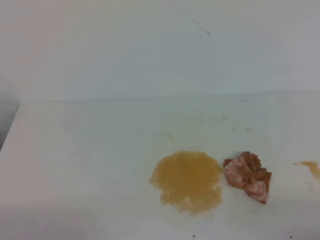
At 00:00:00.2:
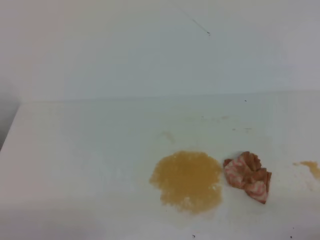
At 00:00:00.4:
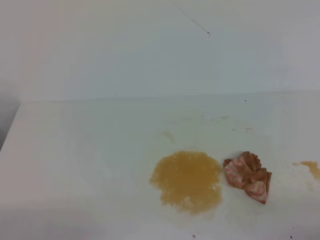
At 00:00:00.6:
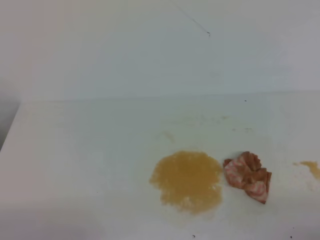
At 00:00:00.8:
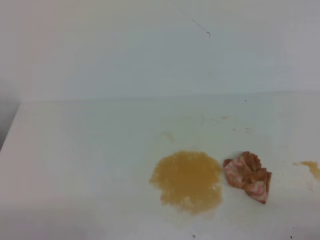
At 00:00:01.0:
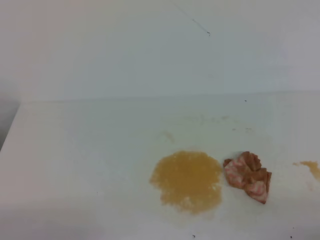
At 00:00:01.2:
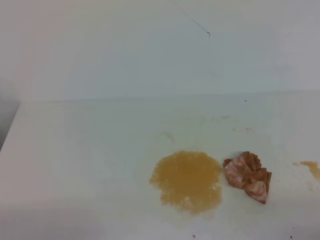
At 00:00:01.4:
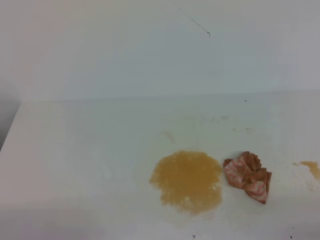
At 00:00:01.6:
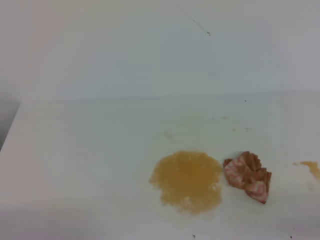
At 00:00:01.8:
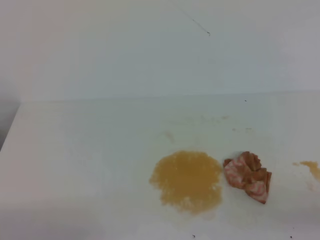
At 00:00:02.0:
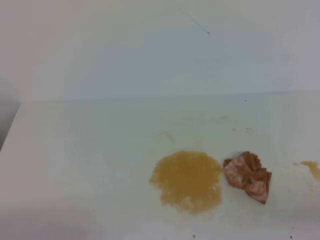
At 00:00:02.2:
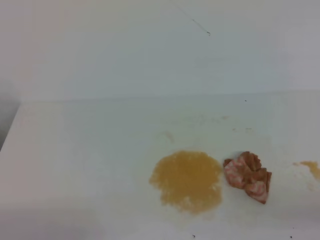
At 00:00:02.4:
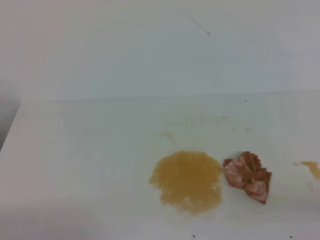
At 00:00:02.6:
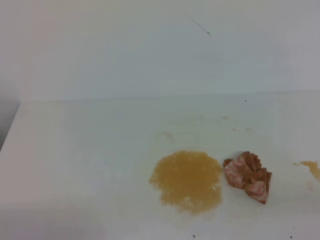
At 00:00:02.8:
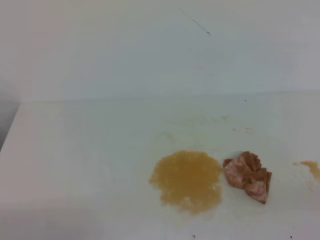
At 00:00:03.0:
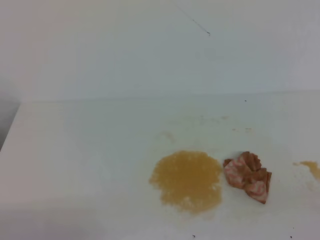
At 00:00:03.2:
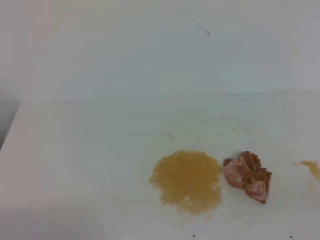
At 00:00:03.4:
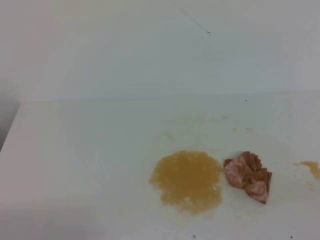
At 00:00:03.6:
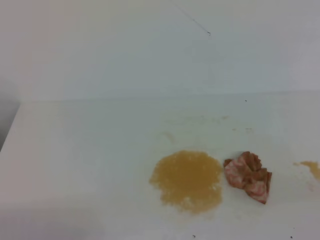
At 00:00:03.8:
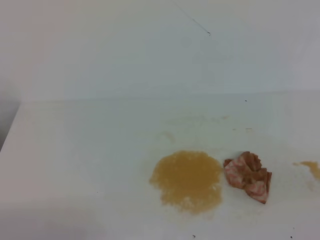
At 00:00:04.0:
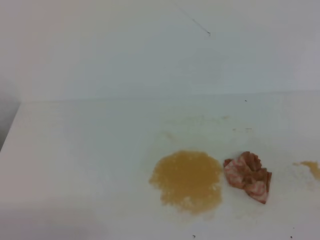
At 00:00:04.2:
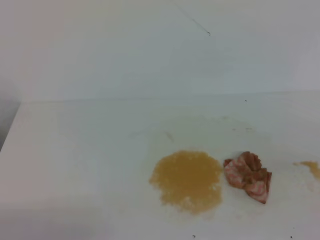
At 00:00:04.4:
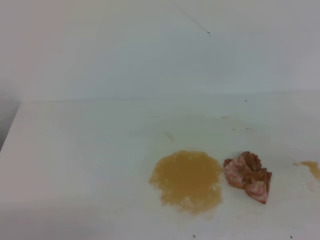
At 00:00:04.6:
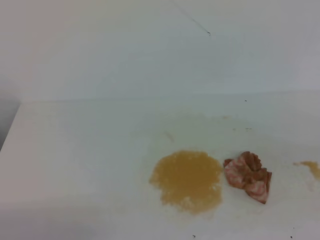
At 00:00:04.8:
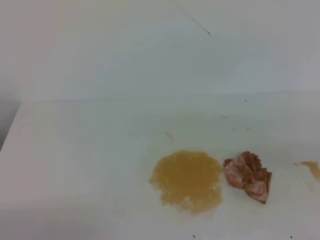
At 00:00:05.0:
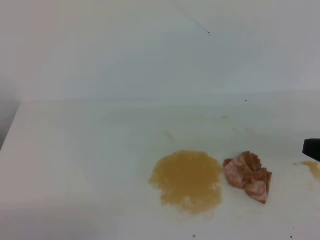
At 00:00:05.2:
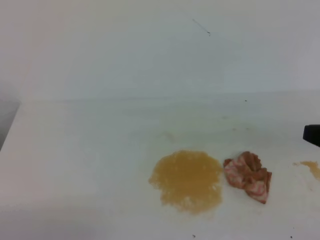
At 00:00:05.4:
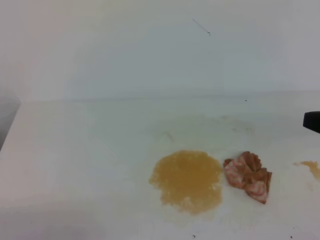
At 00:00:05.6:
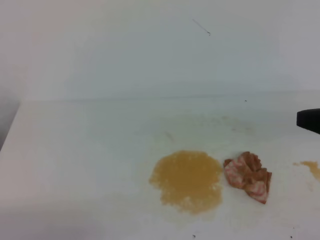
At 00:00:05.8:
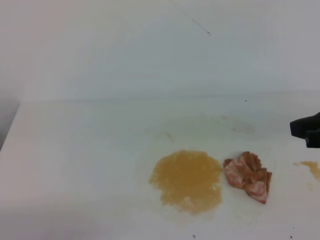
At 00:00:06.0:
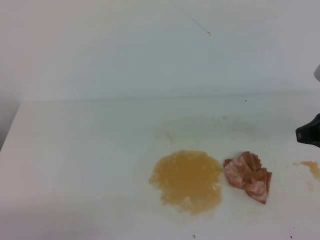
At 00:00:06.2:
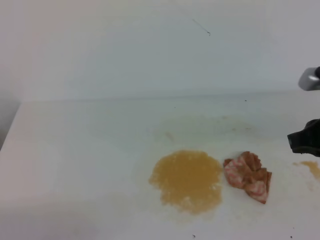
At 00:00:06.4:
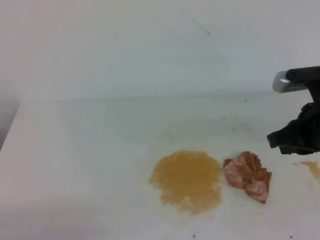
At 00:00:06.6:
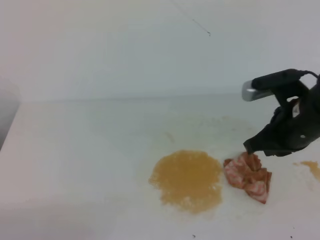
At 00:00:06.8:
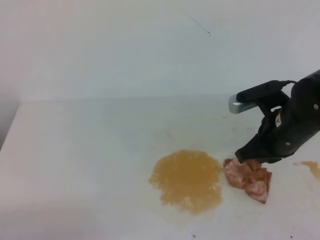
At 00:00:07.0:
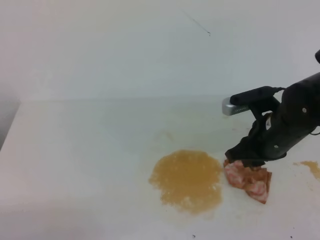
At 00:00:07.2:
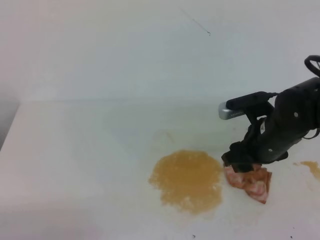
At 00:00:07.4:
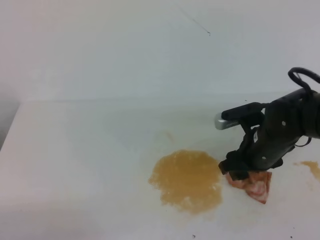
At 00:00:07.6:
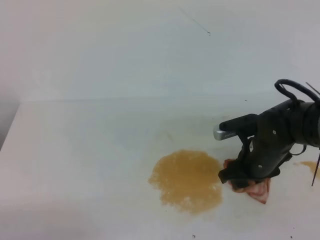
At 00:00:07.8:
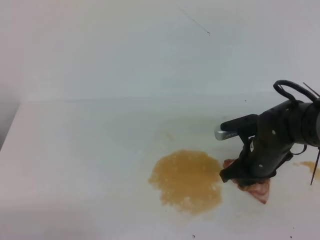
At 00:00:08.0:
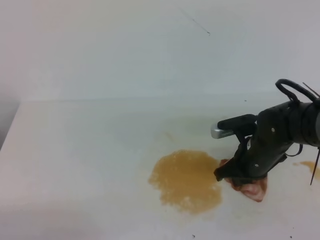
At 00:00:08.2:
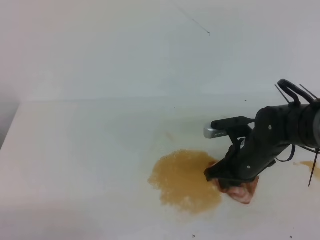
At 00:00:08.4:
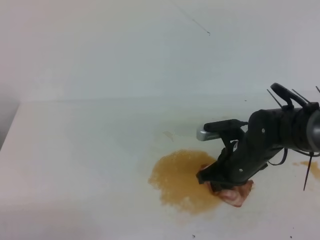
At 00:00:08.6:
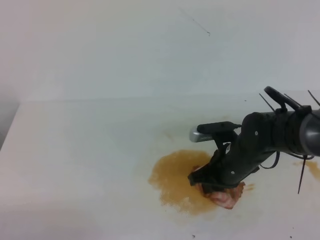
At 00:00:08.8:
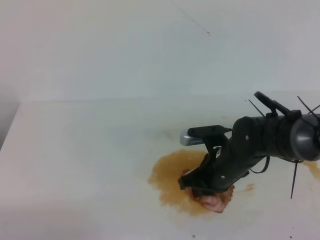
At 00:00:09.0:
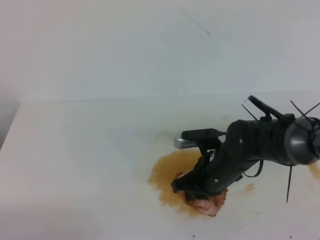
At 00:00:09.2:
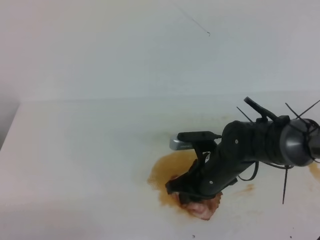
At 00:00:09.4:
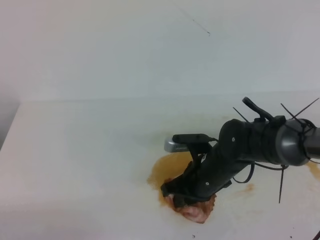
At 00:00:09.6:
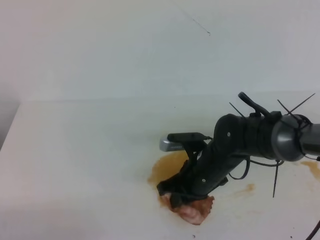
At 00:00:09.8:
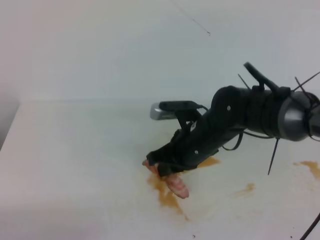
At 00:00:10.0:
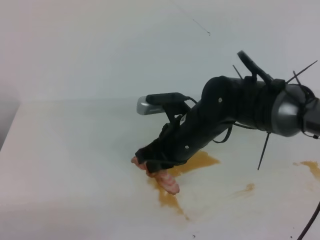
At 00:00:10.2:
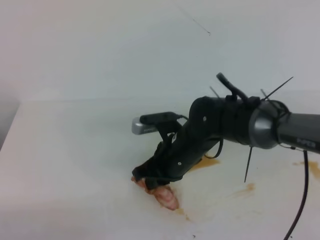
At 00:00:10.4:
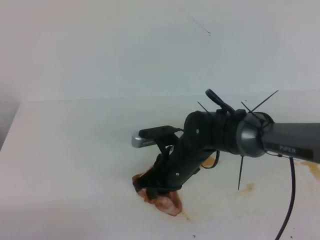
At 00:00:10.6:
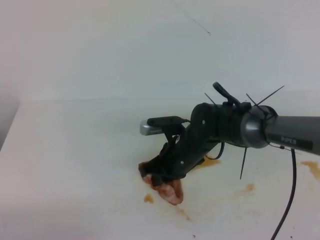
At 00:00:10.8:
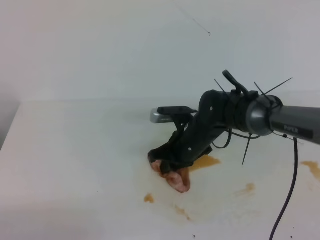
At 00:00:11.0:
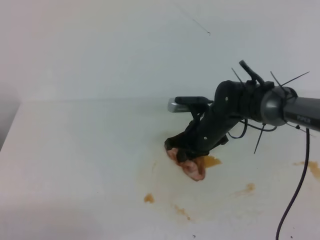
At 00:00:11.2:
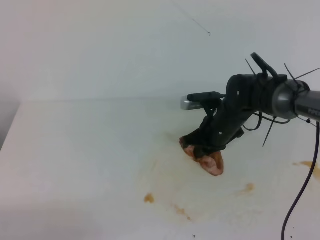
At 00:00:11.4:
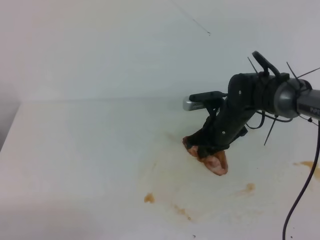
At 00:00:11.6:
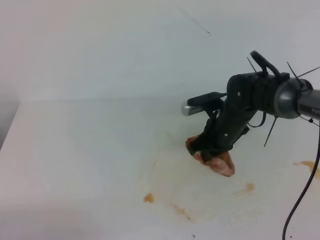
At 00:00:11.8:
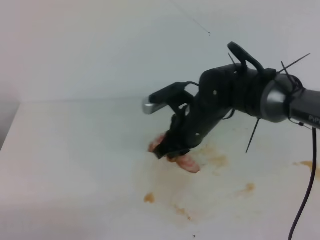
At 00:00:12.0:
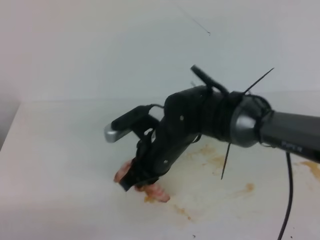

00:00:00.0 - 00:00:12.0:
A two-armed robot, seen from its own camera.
00:00:04.4 - 00:00:06.0: The right gripper heads forward and to the left, covering roughly 10 cm.
00:00:06.0 - 00:00:07.6: The right gripper moves downward, to the left and forward, some 20 cm, and opens its fingers.
00:00:07.6 - 00:00:09.0: The right gripper heads to the left, covering some 5 cm, and closes its fingers.
00:00:09.0 - 00:00:10.4: The right gripper heads to the left, covering some 5 cm.
00:00:10.4 - 00:00:12.0: The right gripper moves roughly 10 cm to the right and comes back.

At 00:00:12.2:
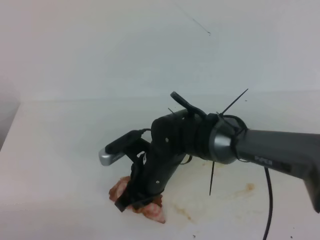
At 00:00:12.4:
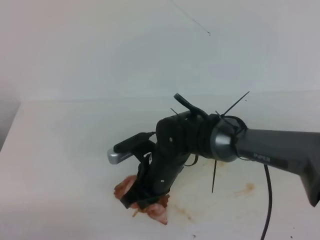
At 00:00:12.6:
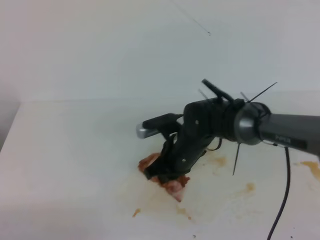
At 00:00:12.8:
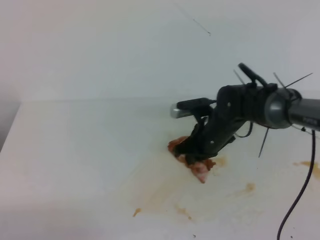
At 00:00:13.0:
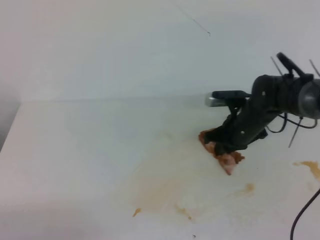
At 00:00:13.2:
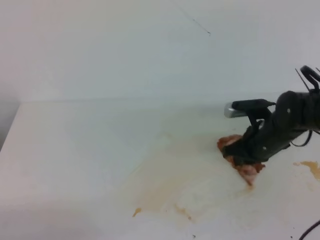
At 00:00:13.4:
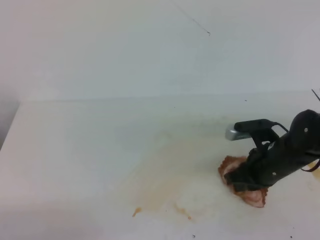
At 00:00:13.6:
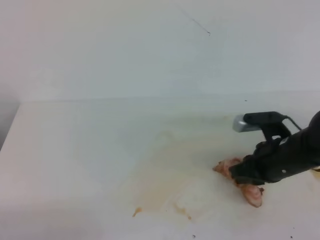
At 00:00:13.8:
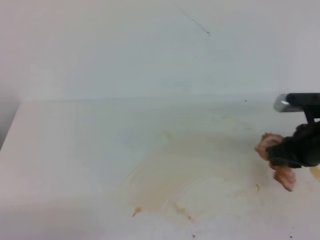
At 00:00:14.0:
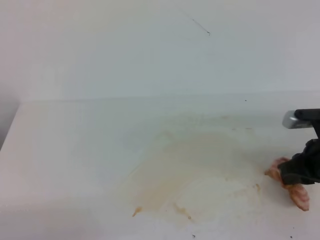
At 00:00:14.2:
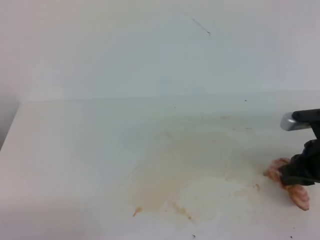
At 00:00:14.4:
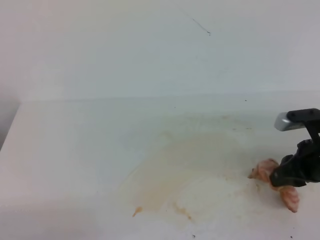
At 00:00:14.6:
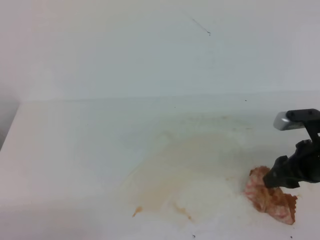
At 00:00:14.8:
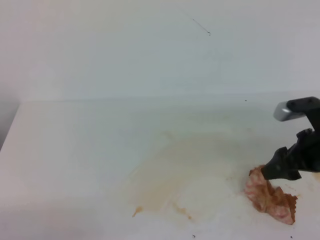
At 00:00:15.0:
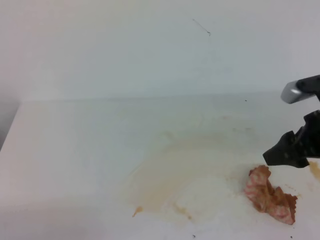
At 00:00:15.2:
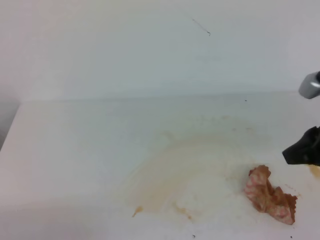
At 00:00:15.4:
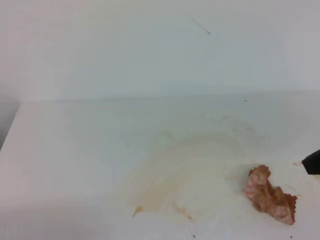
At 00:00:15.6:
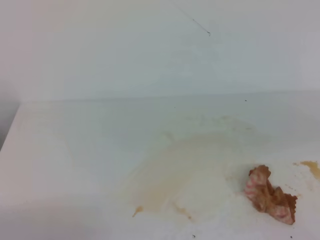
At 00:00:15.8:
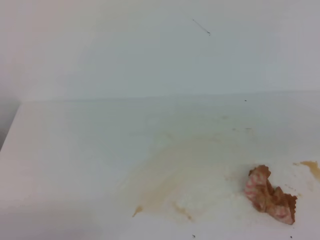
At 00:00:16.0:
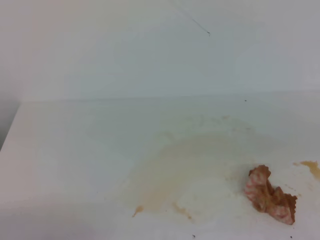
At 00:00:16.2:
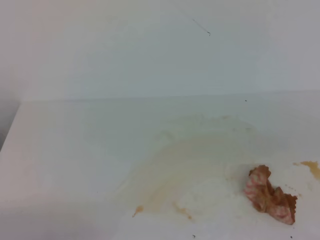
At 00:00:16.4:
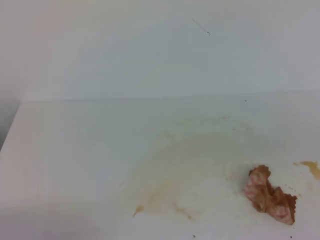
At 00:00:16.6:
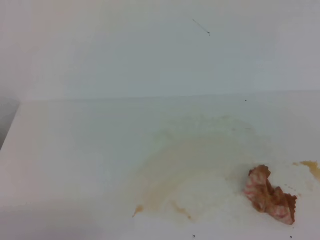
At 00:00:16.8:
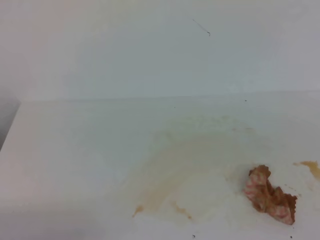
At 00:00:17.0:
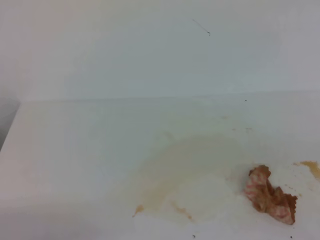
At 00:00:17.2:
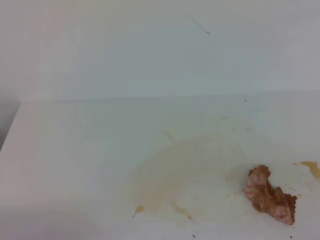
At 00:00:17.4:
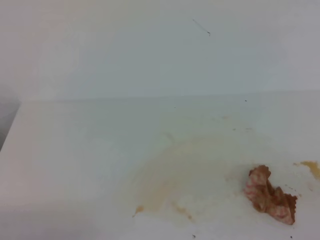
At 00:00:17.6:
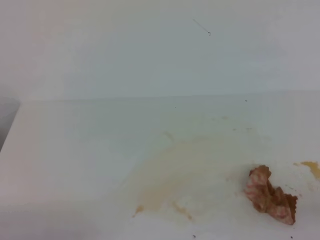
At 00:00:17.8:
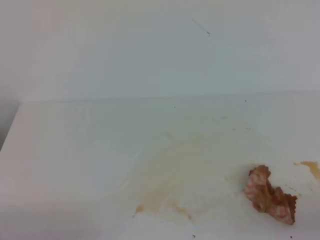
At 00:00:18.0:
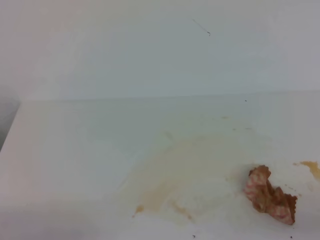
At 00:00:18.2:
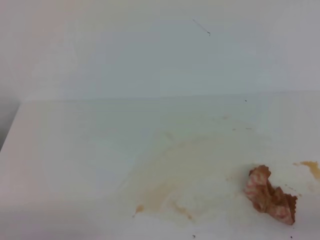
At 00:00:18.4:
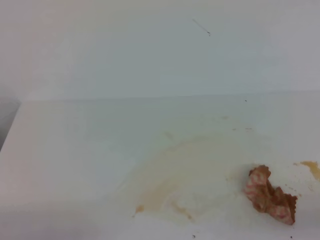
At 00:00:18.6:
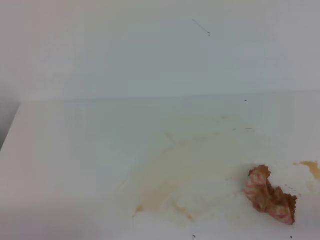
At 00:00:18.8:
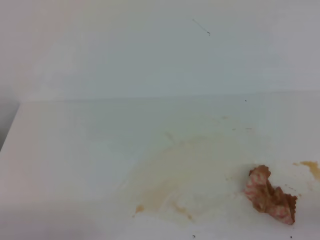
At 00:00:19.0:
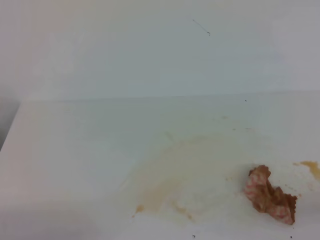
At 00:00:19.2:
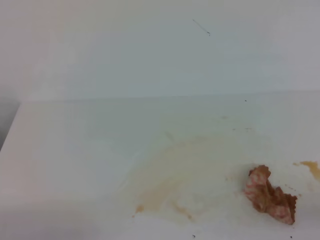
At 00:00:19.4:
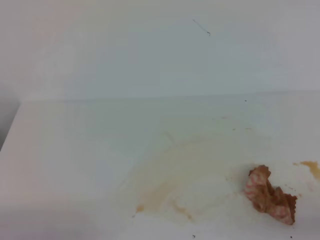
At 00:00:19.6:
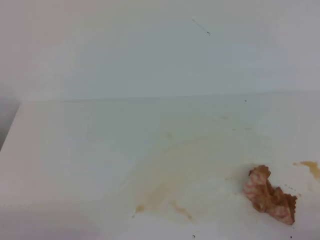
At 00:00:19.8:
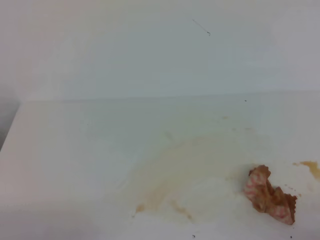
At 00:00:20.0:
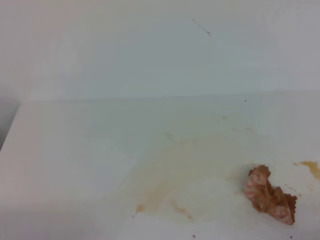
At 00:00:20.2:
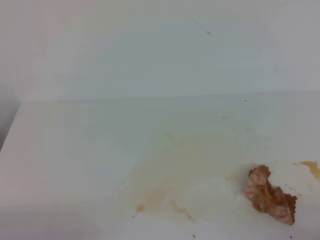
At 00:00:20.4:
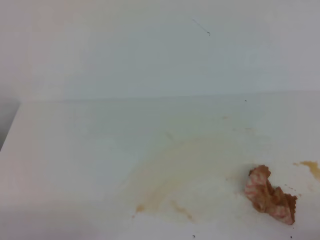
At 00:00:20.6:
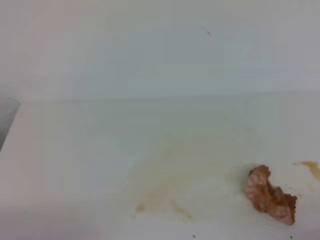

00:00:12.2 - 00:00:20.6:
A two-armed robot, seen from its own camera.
00:00:12.2 - 00:00:13.6: The right gripper moves to the right, approximately 20 cm.
00:00:13.6 - 00:00:15.0: The right gripper shifts some 10 cm upward, and opens.
00:00:15.0 - 00:00:16.4: The right gripper goes some 25 cm backward and upward, and closes.
00:00:16.4 - 00:00:17.8: The right gripper is displaced downward by some 20 cm.
